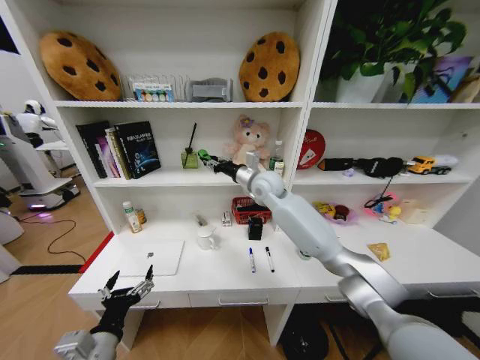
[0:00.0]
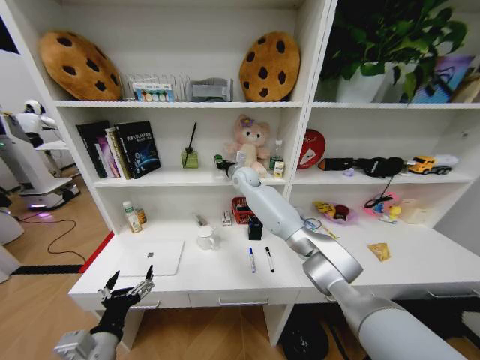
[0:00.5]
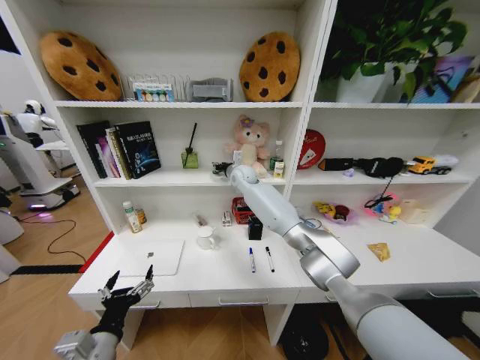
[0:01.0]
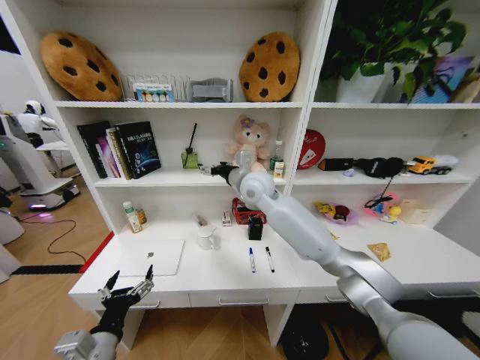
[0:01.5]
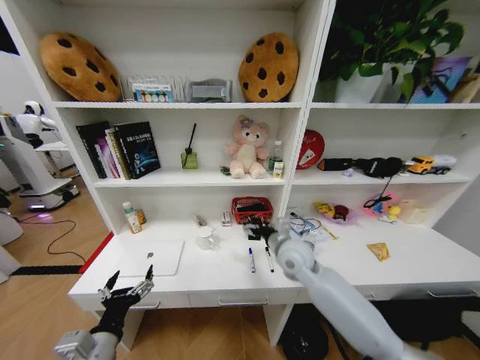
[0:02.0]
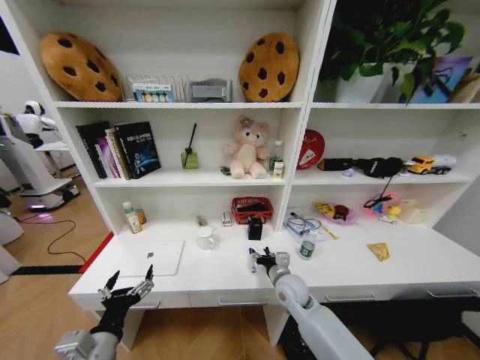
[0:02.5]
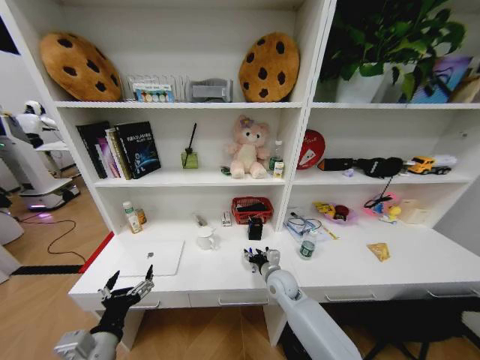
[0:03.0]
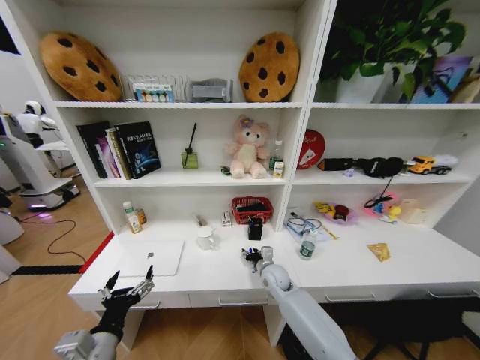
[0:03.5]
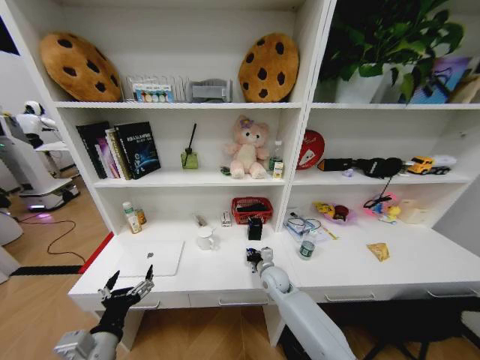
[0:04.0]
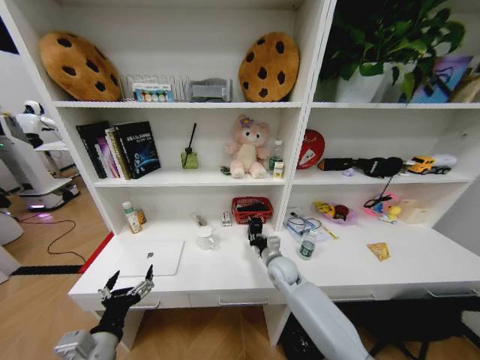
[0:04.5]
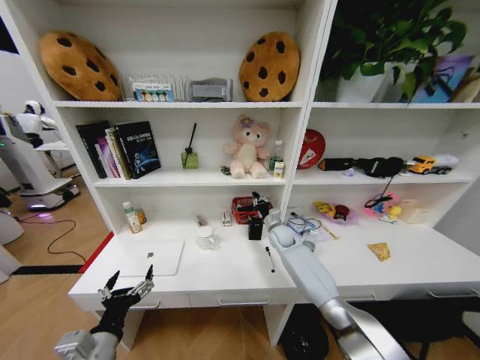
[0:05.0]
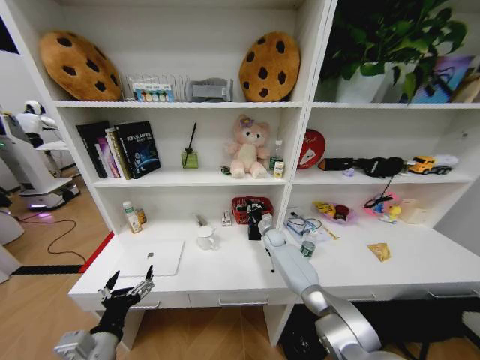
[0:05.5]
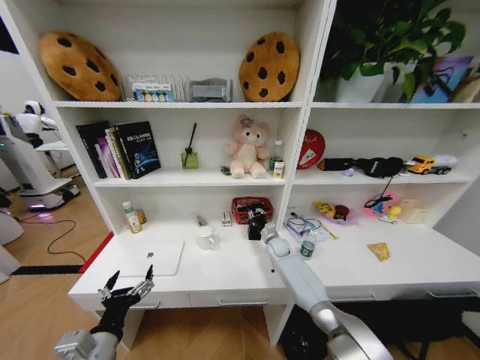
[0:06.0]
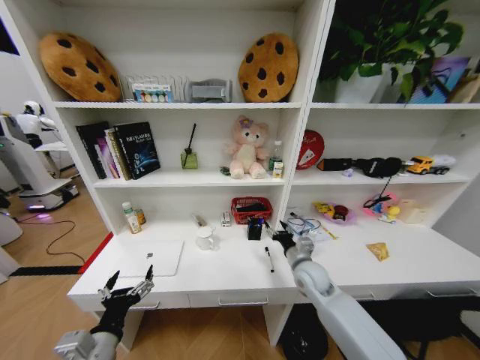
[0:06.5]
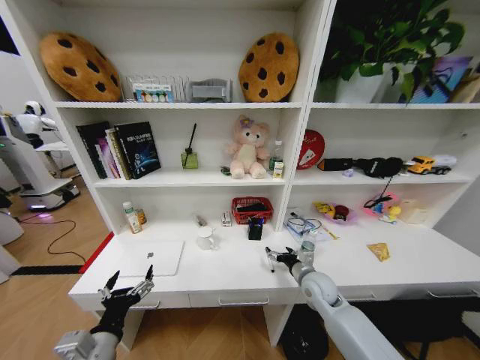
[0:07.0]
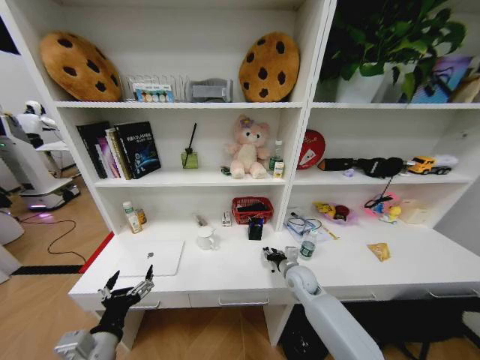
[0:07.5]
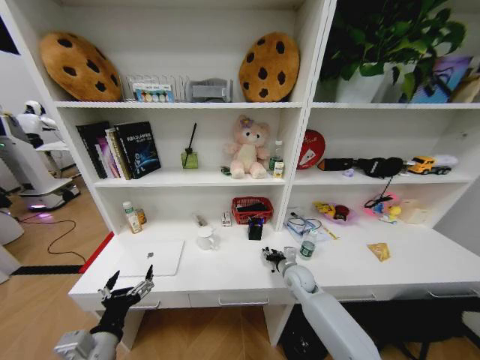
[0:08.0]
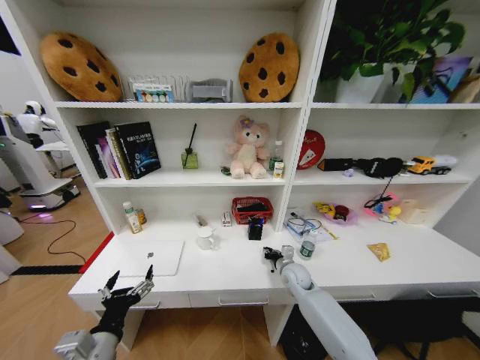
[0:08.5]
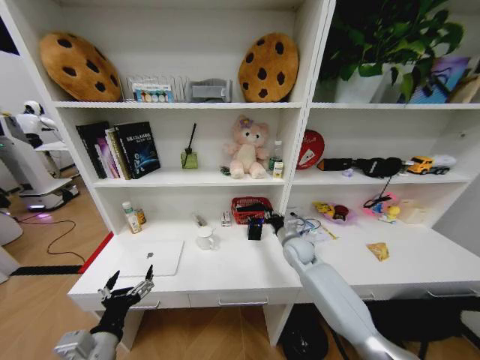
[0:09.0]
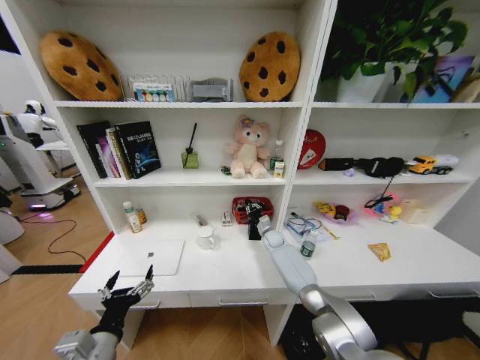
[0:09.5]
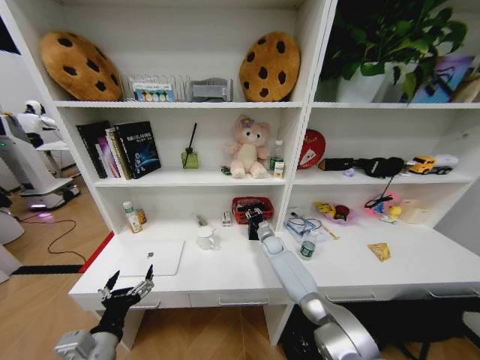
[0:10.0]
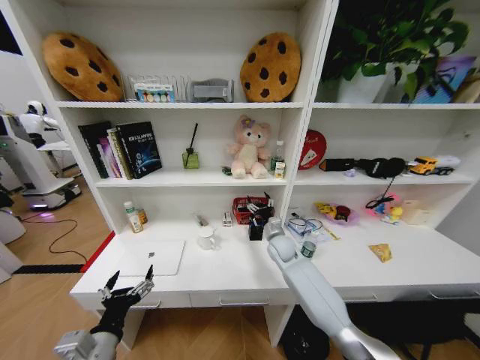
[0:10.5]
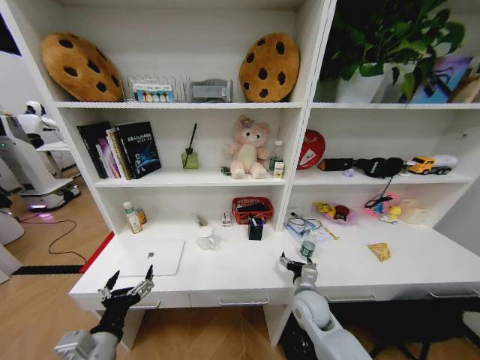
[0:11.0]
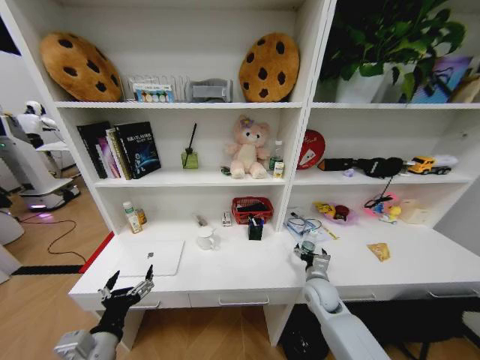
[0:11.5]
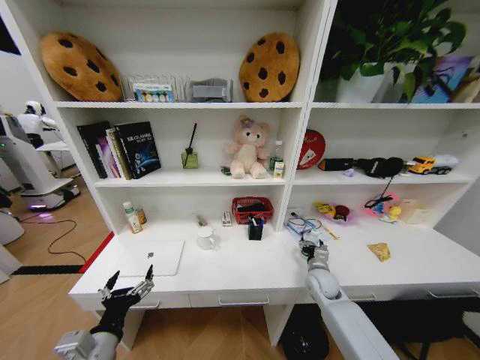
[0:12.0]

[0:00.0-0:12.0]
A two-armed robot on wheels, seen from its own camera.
Task of the whole recording: Organize the objects on the table.
0:00.0 to 0:02.0: The right gripper travels downward, backward and to the right by approximately 25 cm, and opens.
0:02.0 to 0:04.0: The right gripper goes approximately 15 cm downward, and closes its fingers.
0:04.0 to 0:06.0: The right gripper heads forward, covering approximately 15 cm.
0:06.0 to 0:08.0: The right gripper moves backward, some 15 cm, and opens, then closes once more.
0:08.0 to 0:10.0: The right gripper moves forward, roughly 15 cm.
0:10.0 to 0:12.0: The right gripper heads backward and to the right, covering roughly 20 cm, and opens.

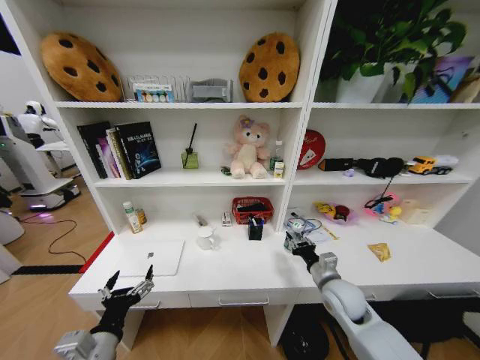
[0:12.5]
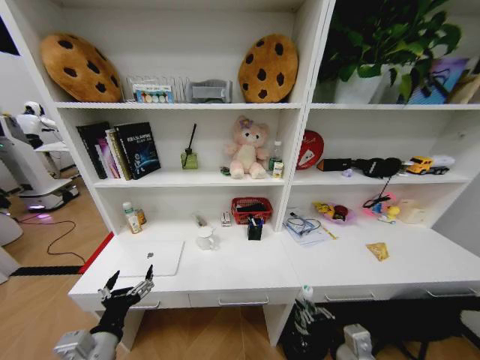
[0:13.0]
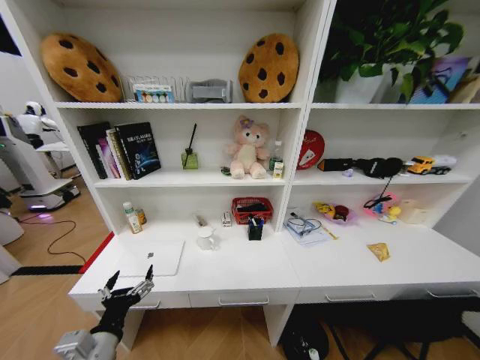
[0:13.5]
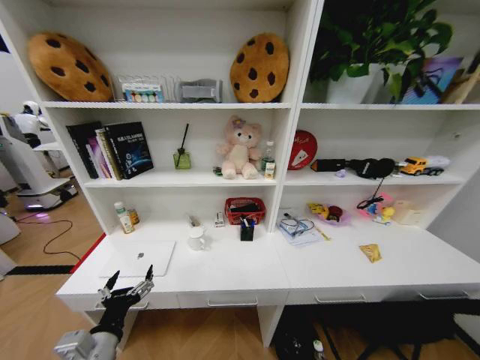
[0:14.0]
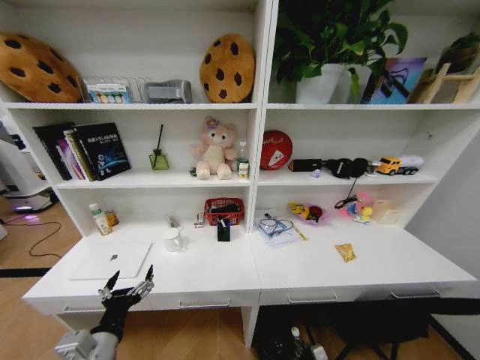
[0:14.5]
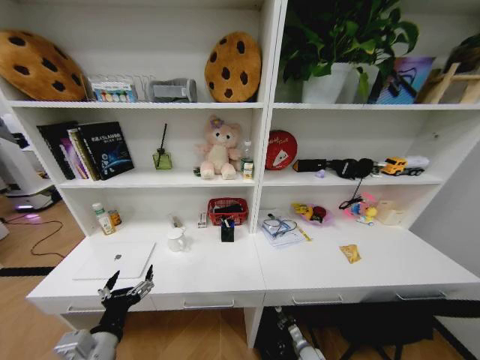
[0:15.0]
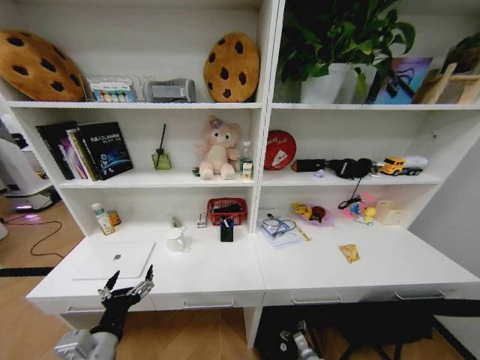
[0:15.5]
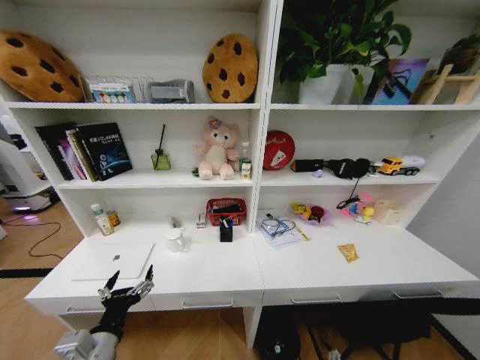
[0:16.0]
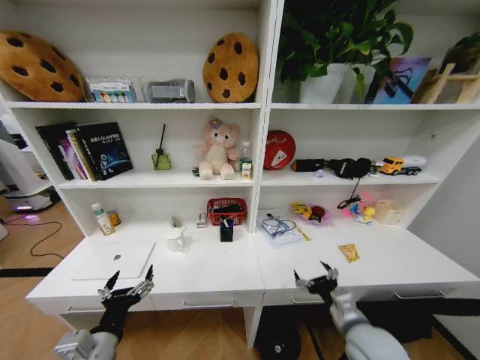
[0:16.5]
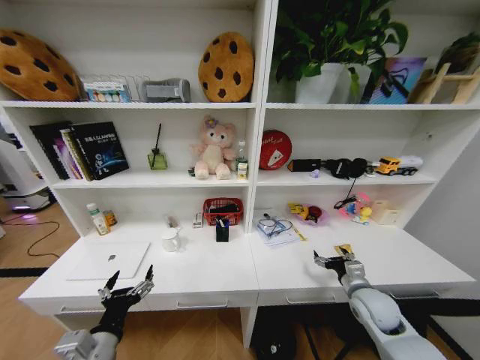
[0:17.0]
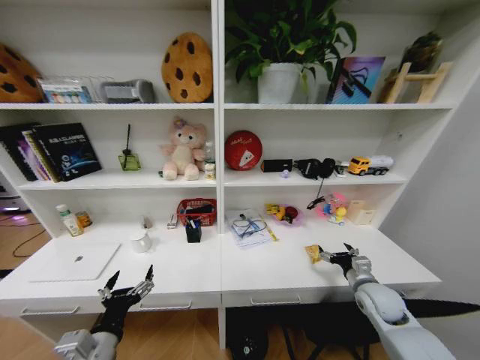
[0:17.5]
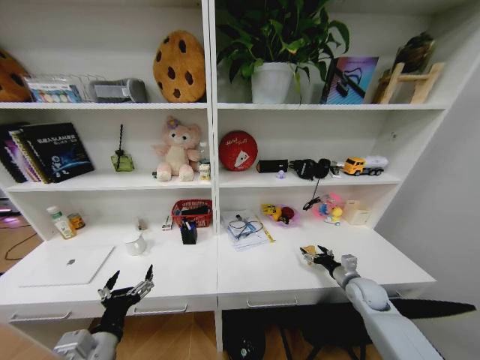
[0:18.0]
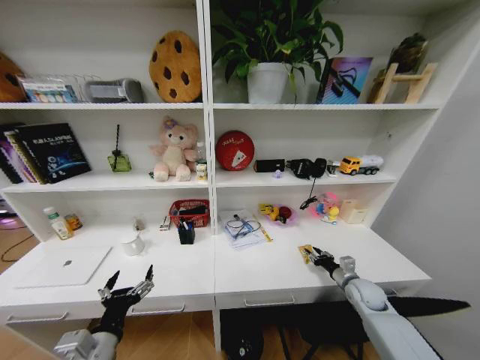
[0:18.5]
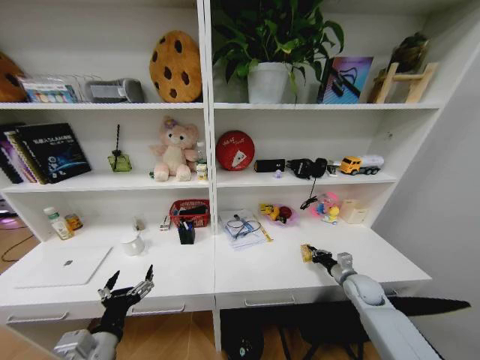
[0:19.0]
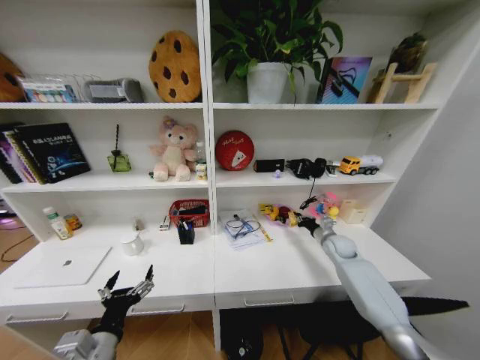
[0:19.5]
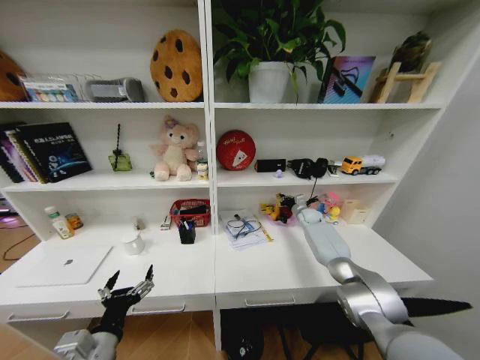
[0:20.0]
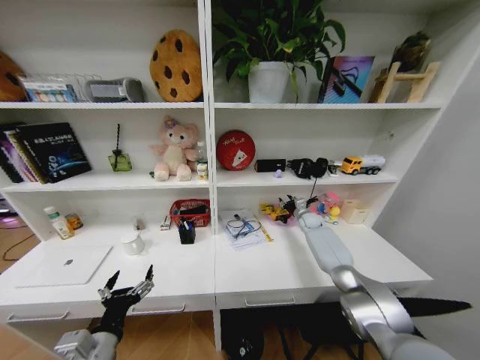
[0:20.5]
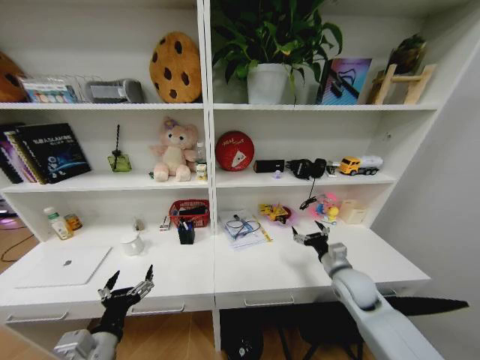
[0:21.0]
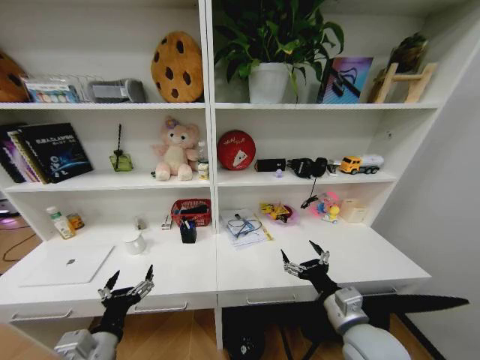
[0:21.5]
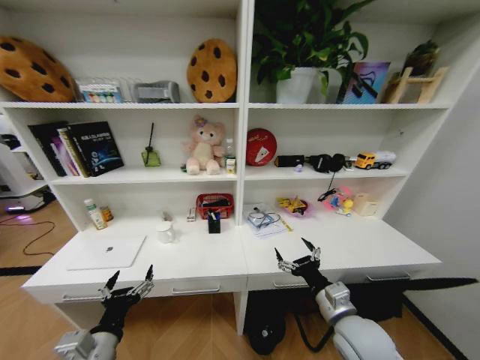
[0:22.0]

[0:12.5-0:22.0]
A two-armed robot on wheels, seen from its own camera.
Task of the whole recording: Organize the objects on the table.
0:12.5 to 0:14.5: The right gripper heads downward and backward, covering about 35 cm.
0:14.5 to 0:16.5: The right gripper moves upward, approximately 35 cm, and opens its fingers.
0:16.5 to 0:18.0: The right gripper travels forward, to the right and downward by roughly 25 cm.
0:18.0 to 0:20.0: The right gripper shifts roughly 30 cm forward, and closes.
0:20.0 to 0:22.0: The right gripper shifts about 40 cm backward, and opens.

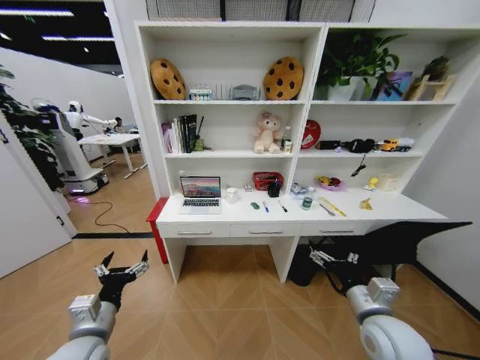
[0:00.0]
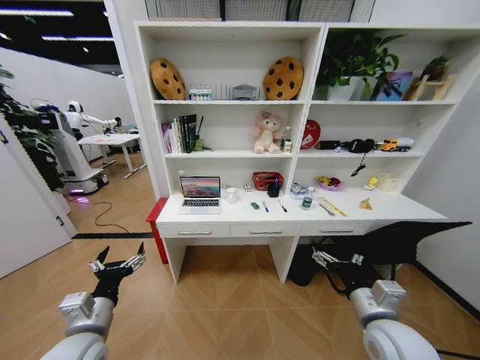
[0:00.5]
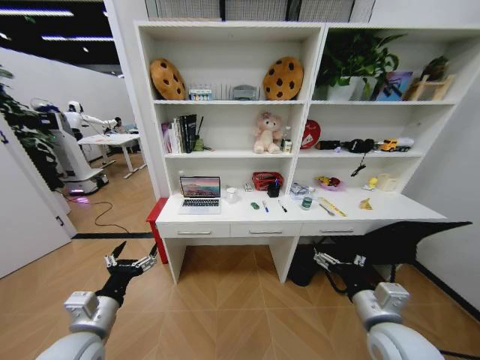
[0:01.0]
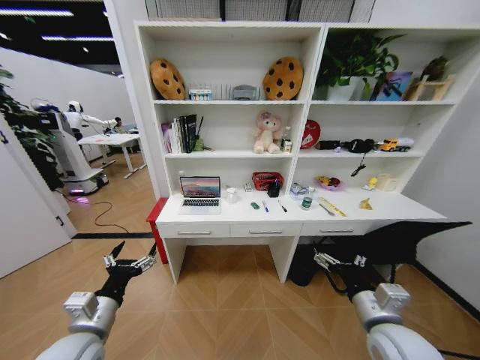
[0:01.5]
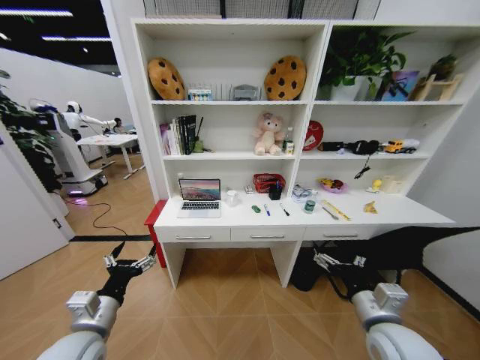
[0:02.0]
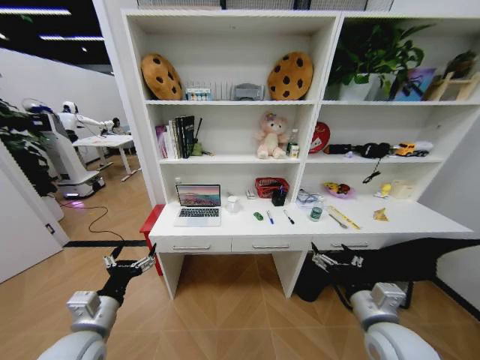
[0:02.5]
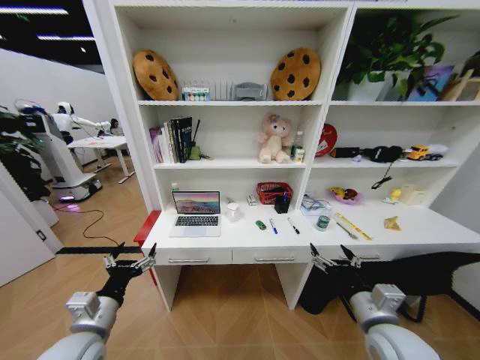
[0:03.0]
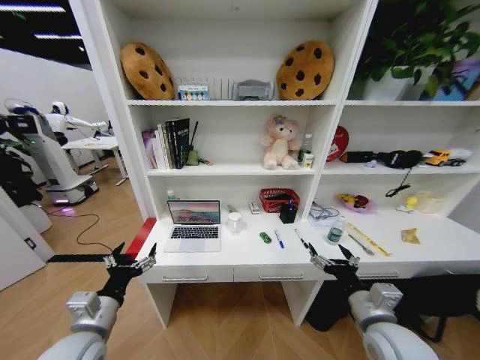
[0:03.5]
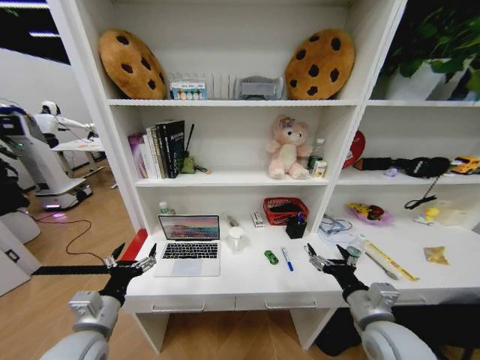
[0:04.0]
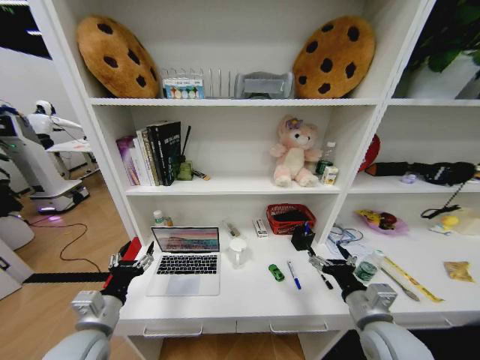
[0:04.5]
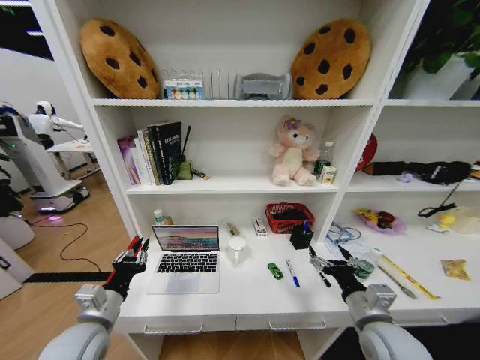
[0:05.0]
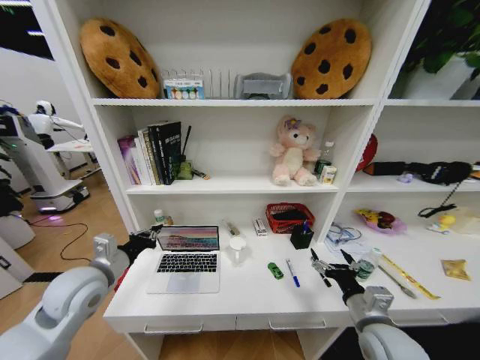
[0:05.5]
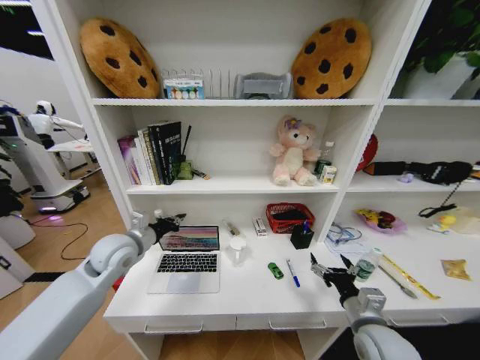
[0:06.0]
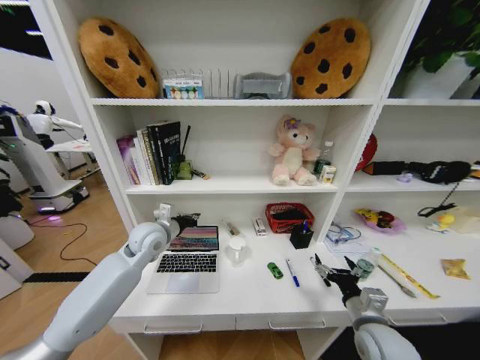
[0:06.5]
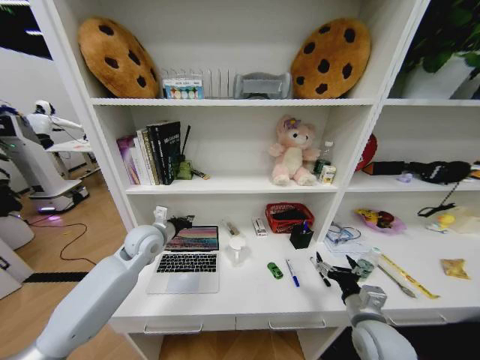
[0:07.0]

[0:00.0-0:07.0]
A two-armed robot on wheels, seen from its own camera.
Task of the whole recording: Organize the objects on the table.
0:03.5 to 0:05.0: The left gripper closes up.
0:05.0 to 0:07.0: The left gripper shifts roughly 20 cm forward.